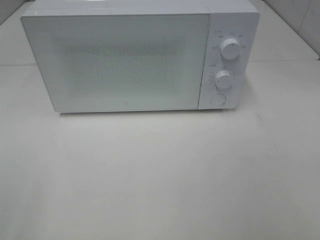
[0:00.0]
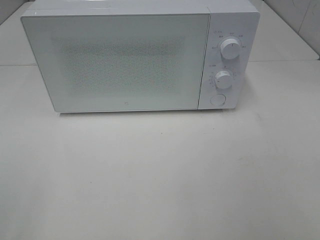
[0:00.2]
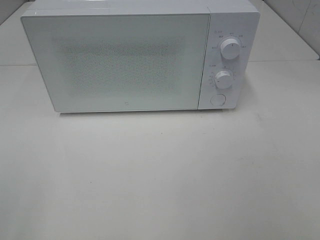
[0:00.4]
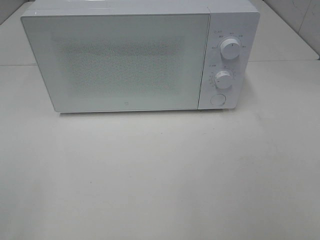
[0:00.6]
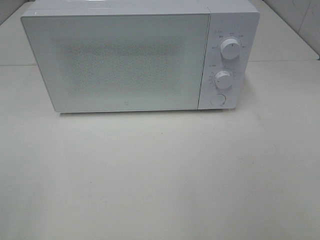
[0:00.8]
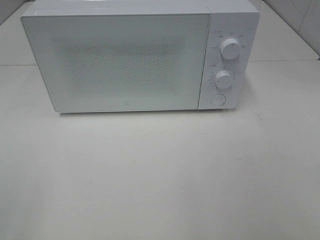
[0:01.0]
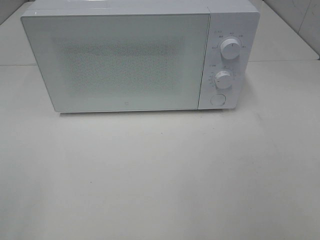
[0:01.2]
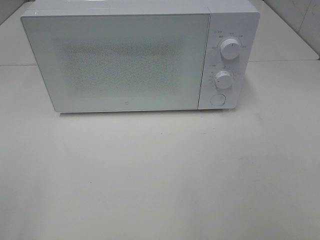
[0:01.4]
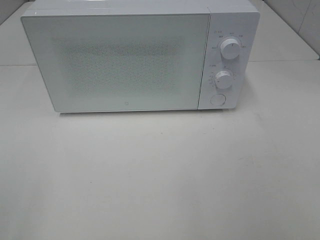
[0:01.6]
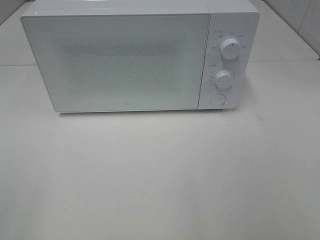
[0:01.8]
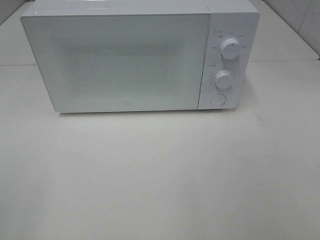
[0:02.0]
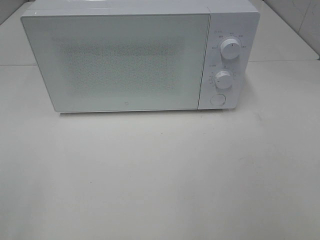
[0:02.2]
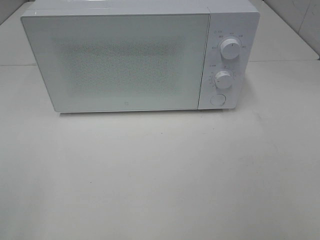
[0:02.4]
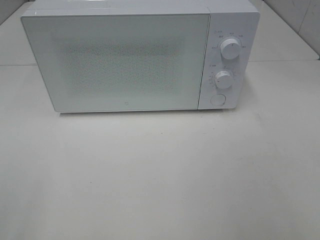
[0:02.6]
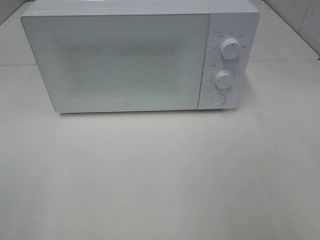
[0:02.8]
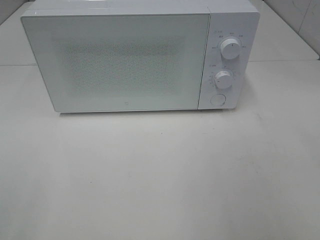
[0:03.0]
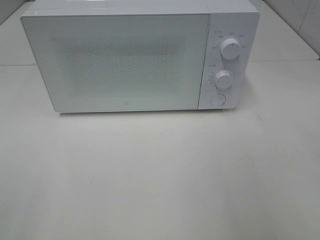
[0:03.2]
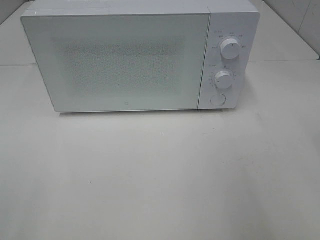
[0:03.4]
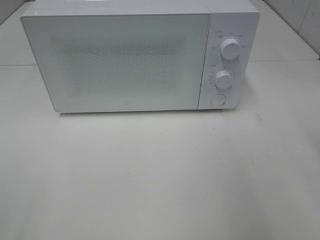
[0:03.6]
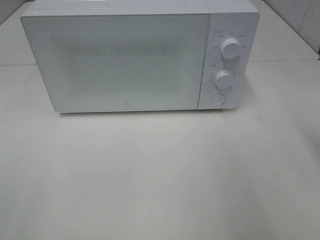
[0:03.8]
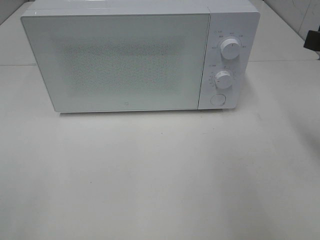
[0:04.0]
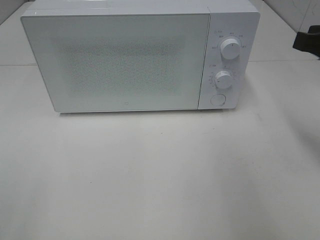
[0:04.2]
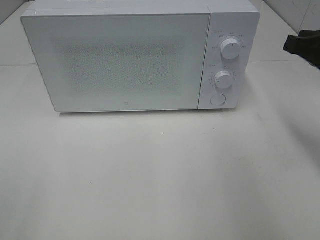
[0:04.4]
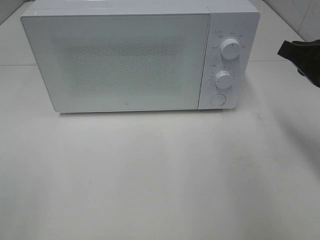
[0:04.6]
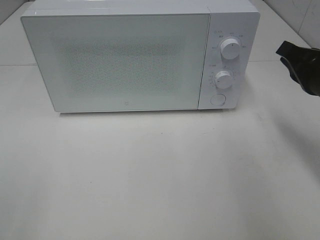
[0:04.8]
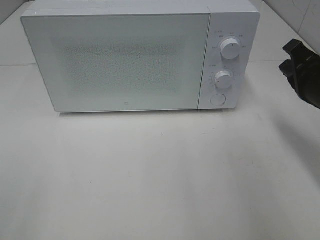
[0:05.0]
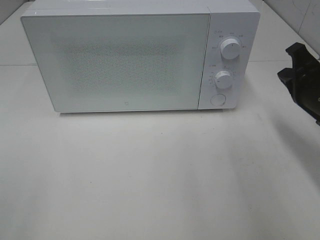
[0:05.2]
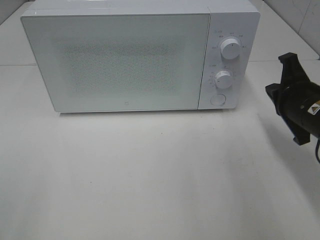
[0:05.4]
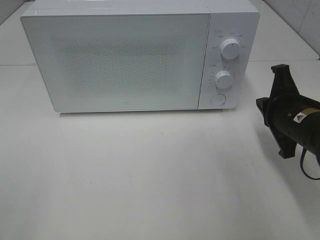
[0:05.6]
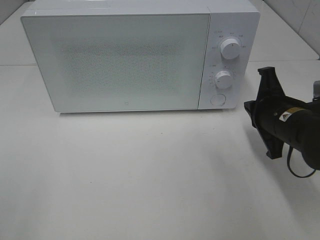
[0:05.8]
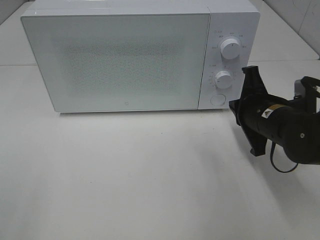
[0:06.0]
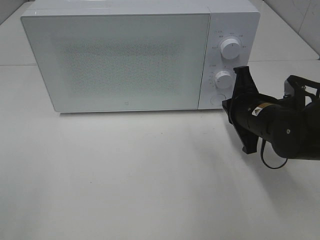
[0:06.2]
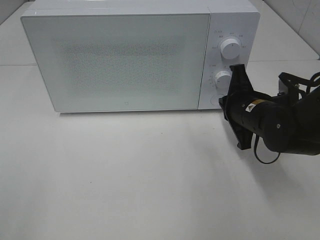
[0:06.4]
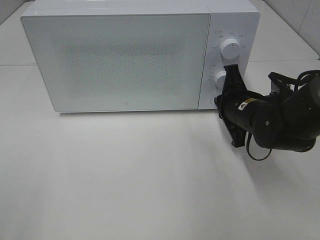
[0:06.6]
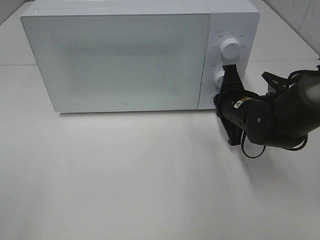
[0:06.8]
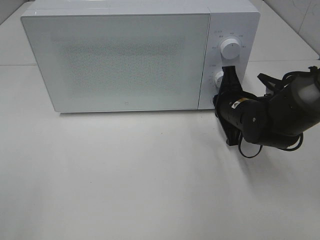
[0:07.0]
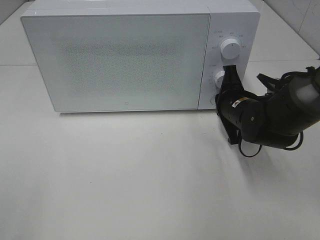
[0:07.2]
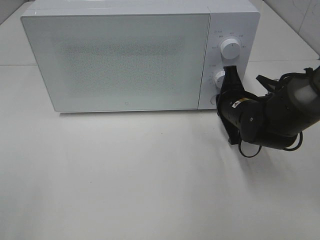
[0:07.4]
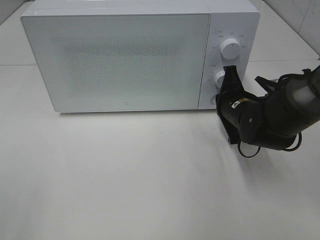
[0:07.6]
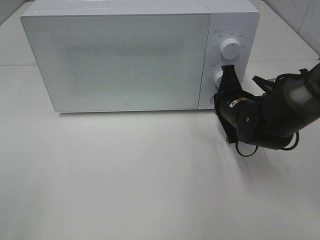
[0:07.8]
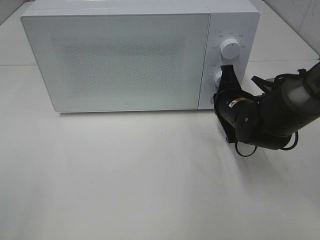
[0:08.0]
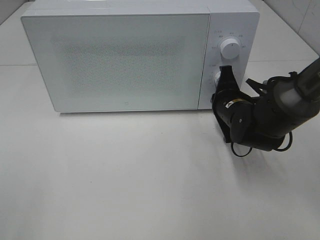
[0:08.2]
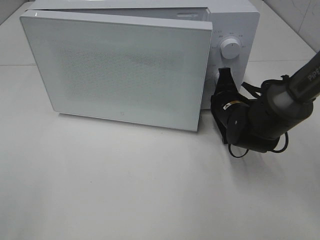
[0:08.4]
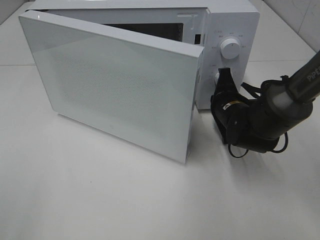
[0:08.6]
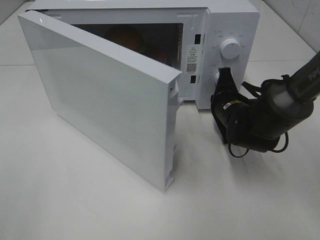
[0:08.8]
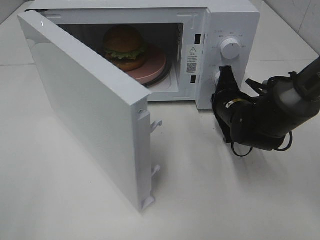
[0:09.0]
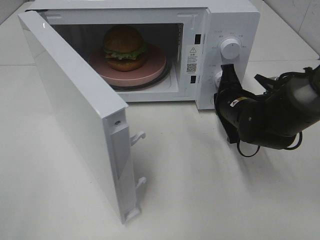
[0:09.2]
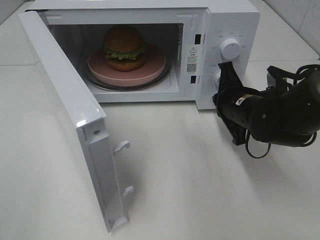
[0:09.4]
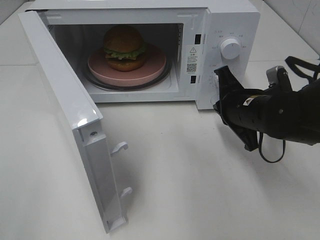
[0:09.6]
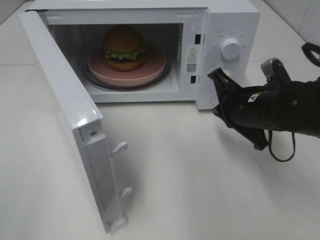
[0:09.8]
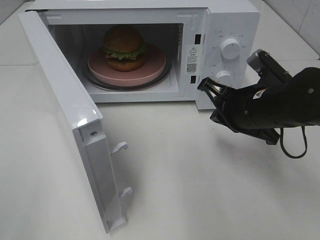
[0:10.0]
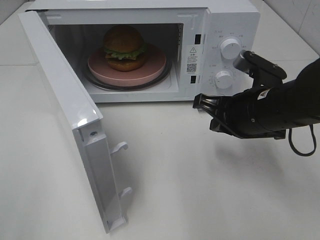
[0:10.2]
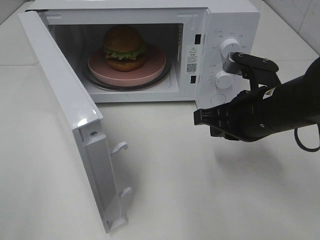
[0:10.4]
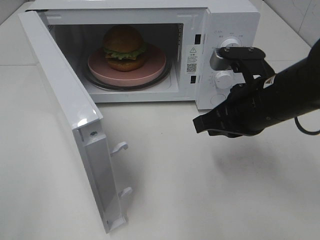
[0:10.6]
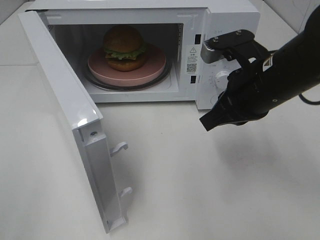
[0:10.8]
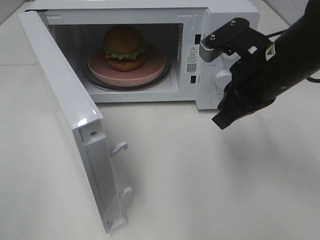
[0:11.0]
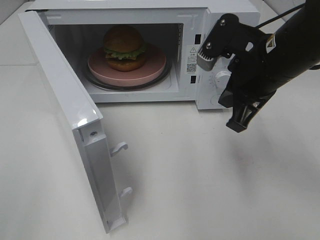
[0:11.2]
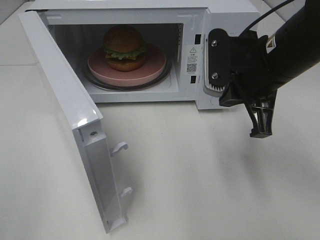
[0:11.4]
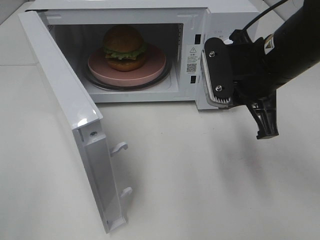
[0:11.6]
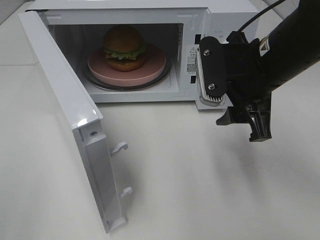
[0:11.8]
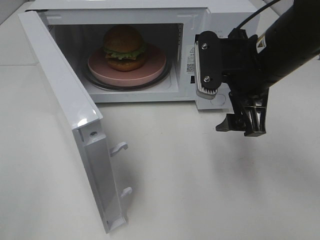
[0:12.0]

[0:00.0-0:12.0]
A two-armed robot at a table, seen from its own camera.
Task of the whole recording: Heat the burger.
Step, 0:00.0 to 0:09.2: Right hand: press the switch.
0:03.0 to 0:04.4: The right gripper heads forward and downward, covering about 15 cm, and closes its fingers.
0:04.4 to 0:06.0: The right gripper goes approximately 15 cm downward and to the left.
0:06.0 to 0:07.6: The right gripper shifts some 5 cm forward.
0:09.0 to 0:10.4: The right gripper shifts some 15 cm backward and upward.
0:10.4 to 0:12.0: The right gripper goes some 5 cm upward, and opens its fingers.

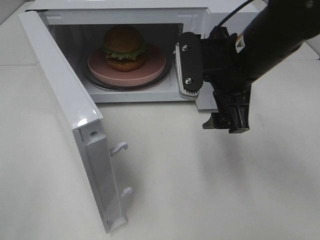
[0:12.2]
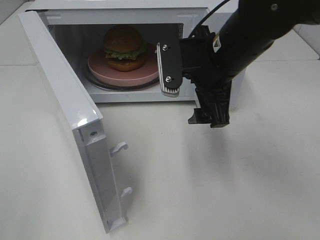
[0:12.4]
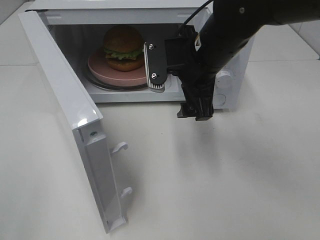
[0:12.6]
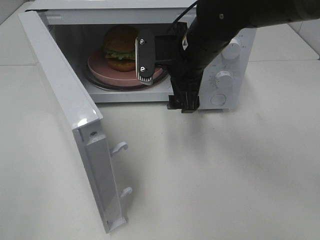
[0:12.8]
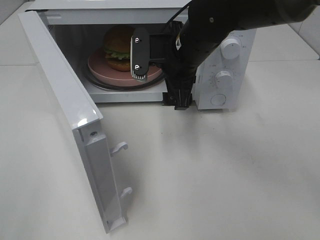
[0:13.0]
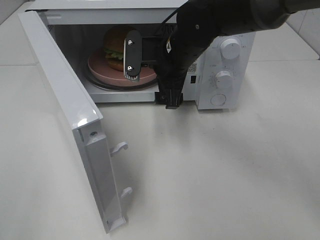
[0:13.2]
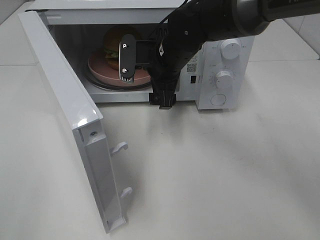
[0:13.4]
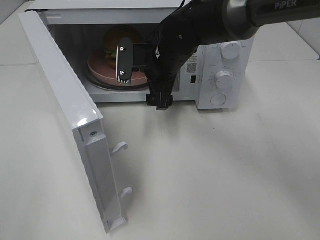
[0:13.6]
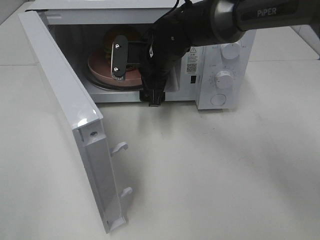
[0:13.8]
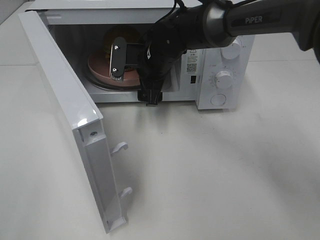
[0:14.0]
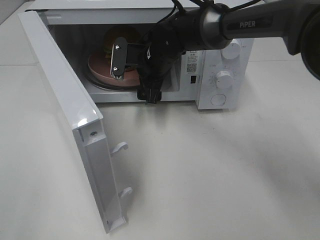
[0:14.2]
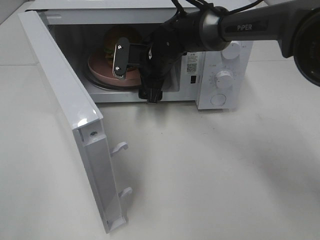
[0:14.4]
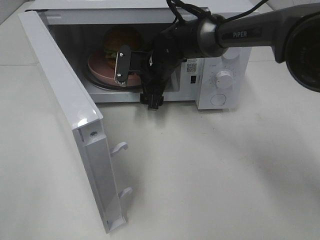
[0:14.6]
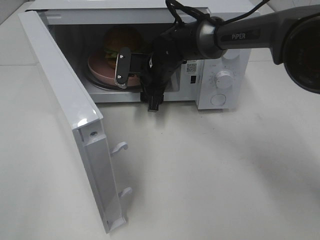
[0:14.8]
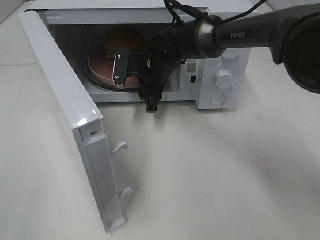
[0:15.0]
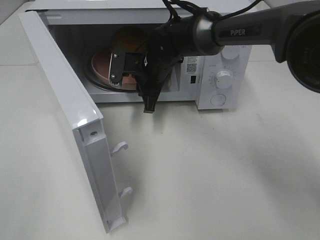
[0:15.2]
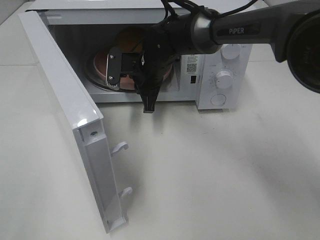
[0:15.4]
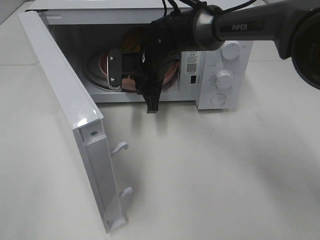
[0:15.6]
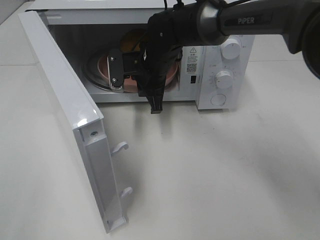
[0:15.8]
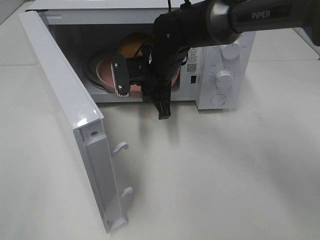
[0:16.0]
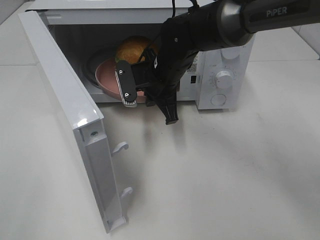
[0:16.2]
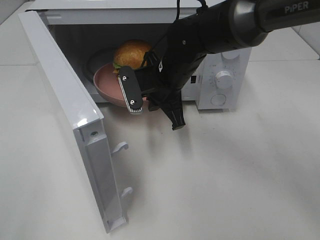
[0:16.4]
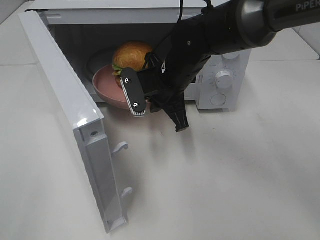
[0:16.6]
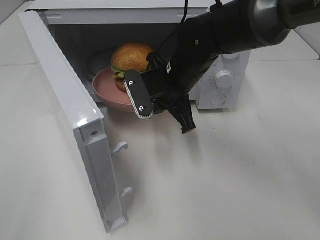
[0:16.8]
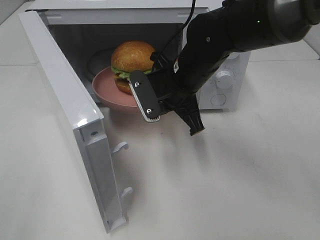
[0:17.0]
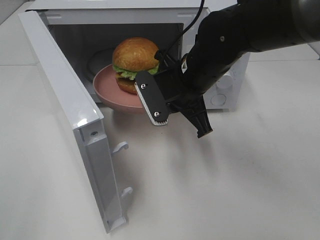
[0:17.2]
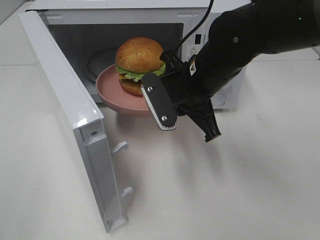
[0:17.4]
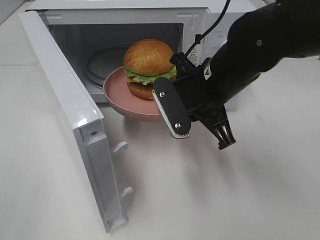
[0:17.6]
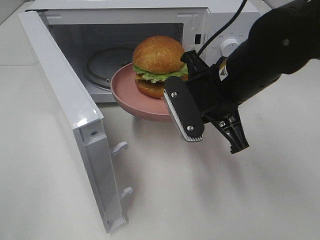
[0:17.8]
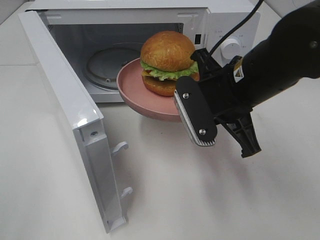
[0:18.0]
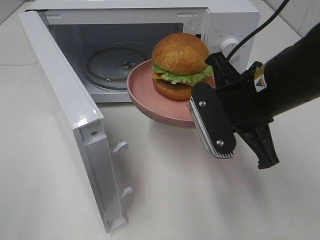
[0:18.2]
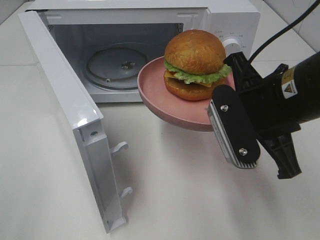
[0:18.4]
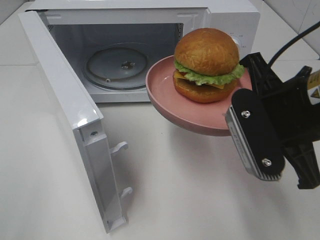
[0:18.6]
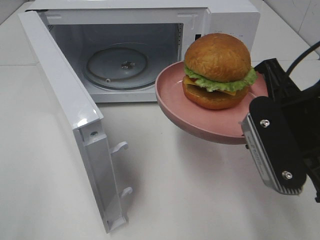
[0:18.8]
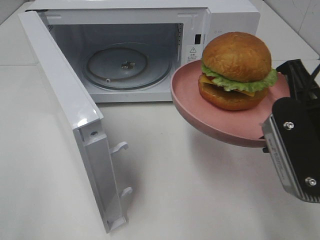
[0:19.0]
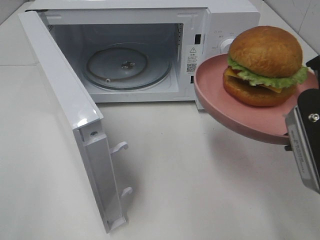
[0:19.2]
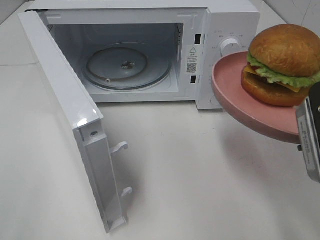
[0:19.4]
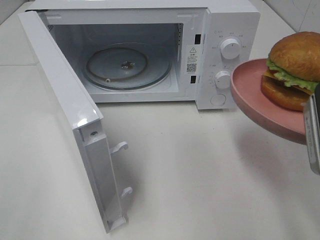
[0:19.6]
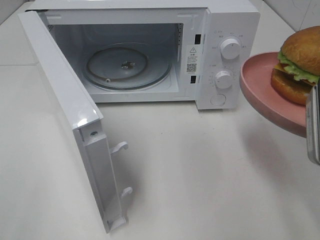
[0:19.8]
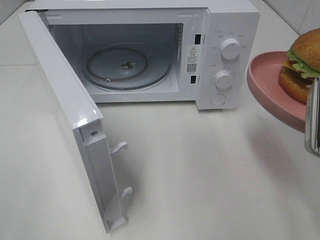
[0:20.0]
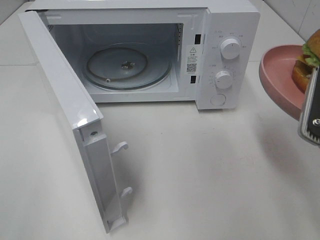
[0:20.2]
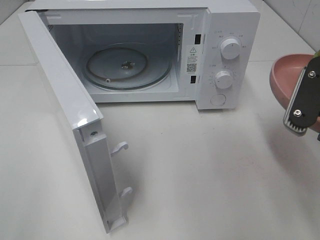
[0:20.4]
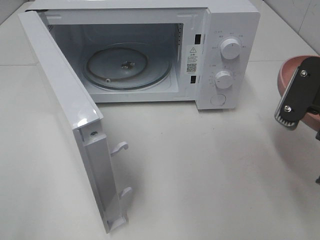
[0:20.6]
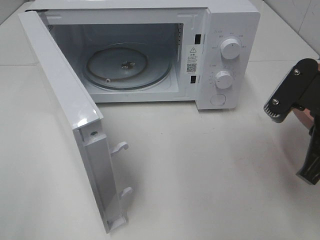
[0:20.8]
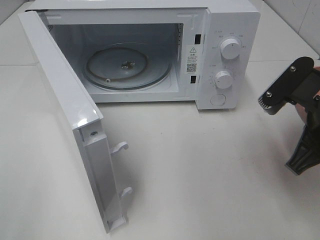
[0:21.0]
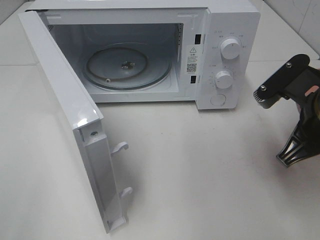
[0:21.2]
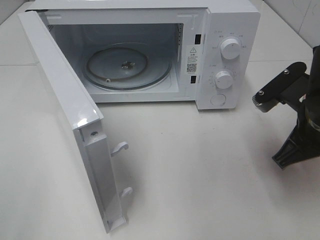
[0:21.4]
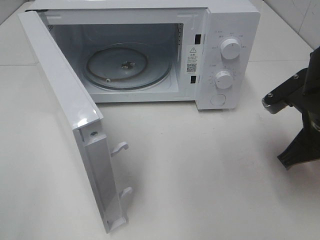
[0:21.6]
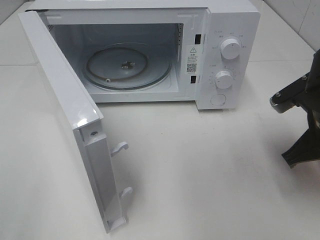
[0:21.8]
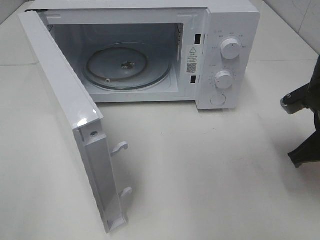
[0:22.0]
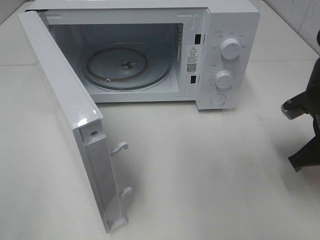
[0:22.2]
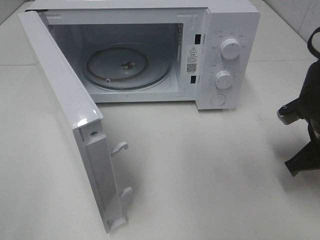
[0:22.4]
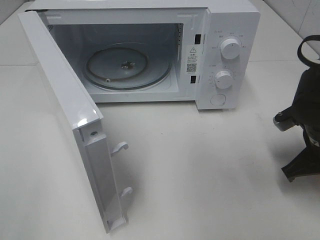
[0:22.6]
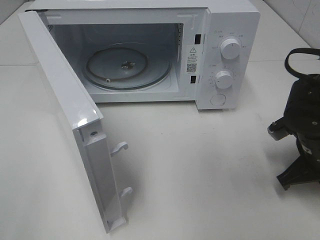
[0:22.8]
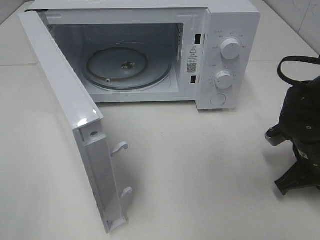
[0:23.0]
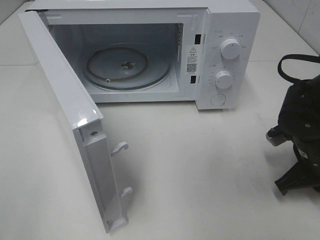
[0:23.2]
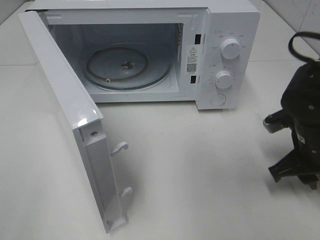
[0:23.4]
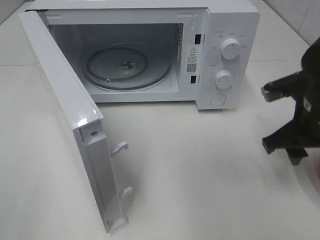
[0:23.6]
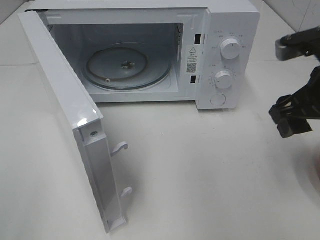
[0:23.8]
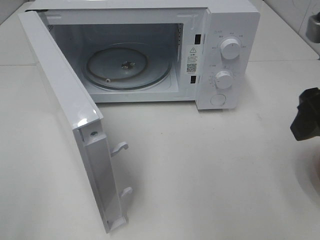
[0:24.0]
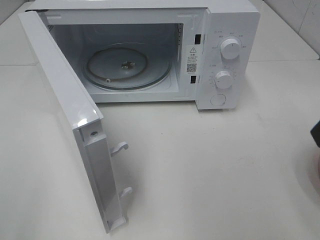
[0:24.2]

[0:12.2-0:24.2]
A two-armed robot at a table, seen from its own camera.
Task of the whole recording: Heat the burger.
Step, 0:12.2 to 0:15.4: Right hand: grab the plate with the hamburger.
Step, 0:12.2 to 0:23.2: Right hand: place the plate on the table.
0:12.2 to 0:13.8: The right gripper heads forward, to the left and downward, covering roughly 20 cm.
0:13.8 to 0:15.2: The right gripper closes up.
0:15.2 to 0:16.6: The right gripper goes some 10 cm backward.
0:16.6 to 0:18.2: The right gripper shifts about 15 cm backward, to the right and upward.
0:18.2 to 0:19.8: The right gripper moves to the right and backward, approximately 10 cm.
0:19.8 to 0:21.2: The right gripper goes approximately 10 cm forward and downward.
0:21.2 to 0:22.6: The right gripper heads downward, covering some 10 cm.
0:22.6 to 0:24.2: The right gripper travels upward and backward by about 20 cm, and opens its fingers.
